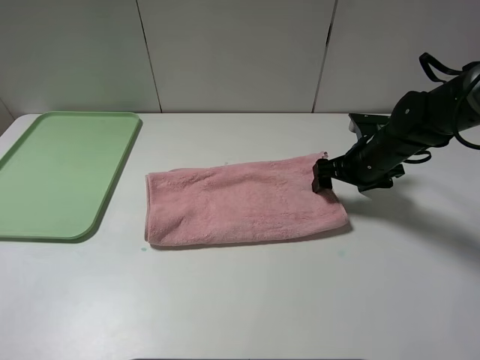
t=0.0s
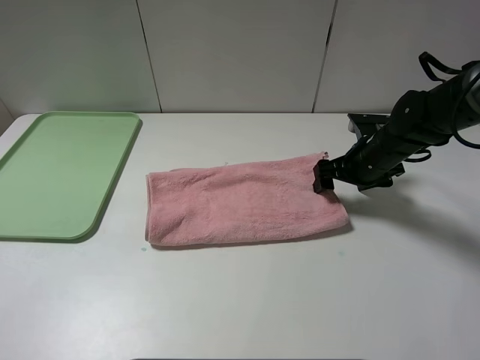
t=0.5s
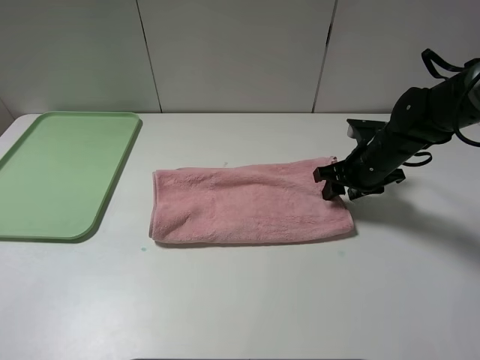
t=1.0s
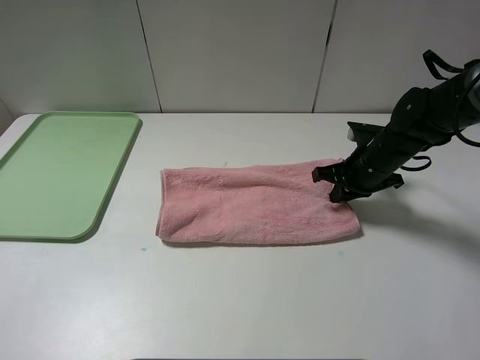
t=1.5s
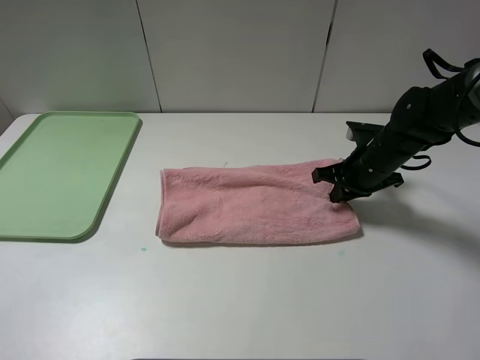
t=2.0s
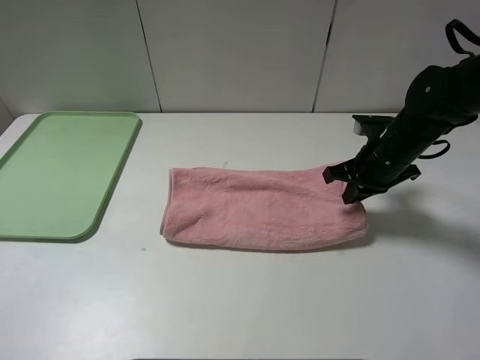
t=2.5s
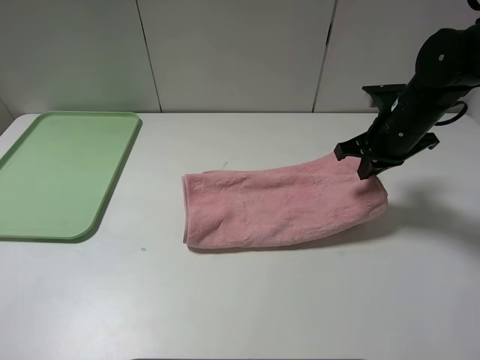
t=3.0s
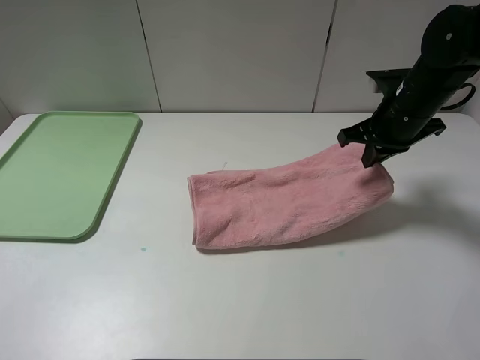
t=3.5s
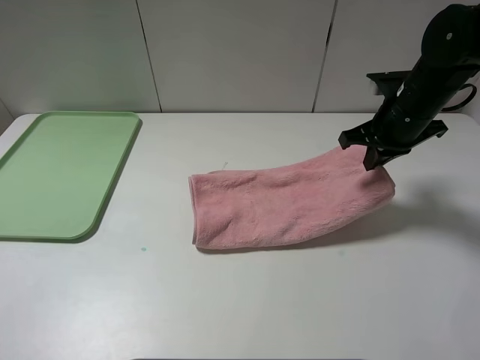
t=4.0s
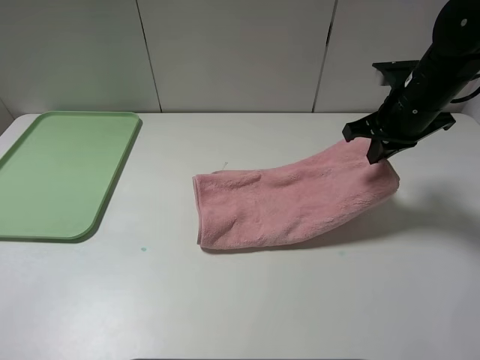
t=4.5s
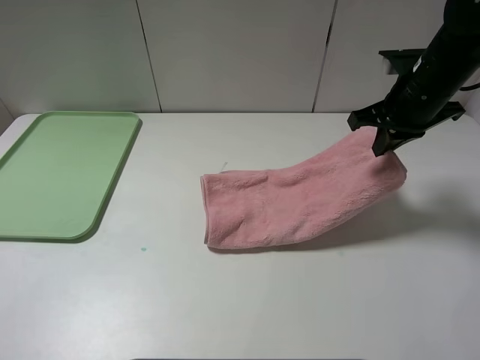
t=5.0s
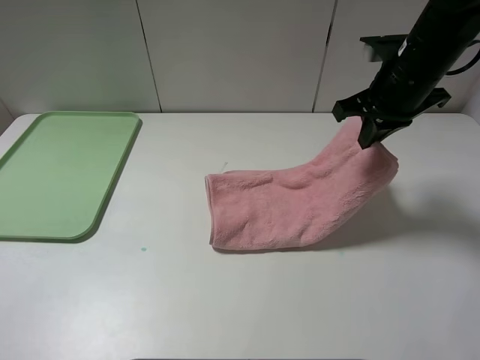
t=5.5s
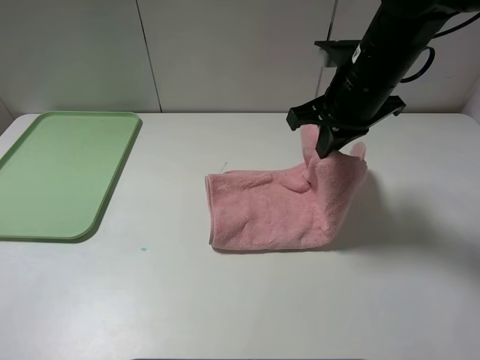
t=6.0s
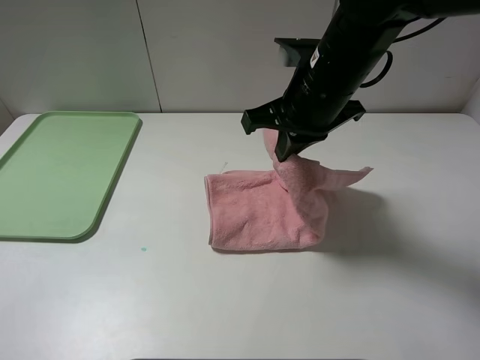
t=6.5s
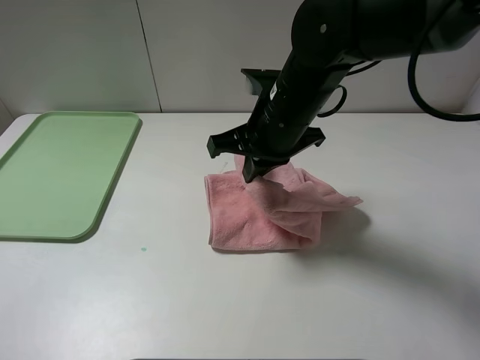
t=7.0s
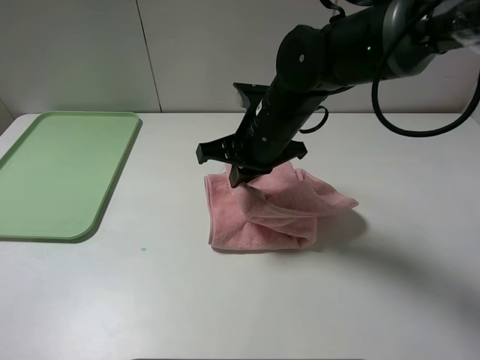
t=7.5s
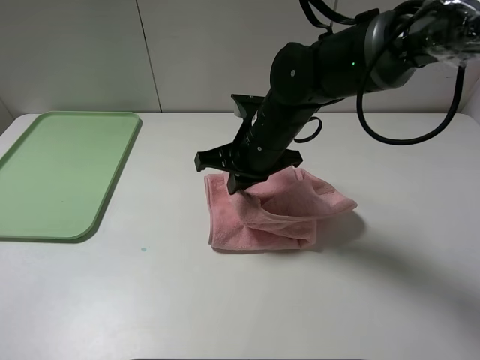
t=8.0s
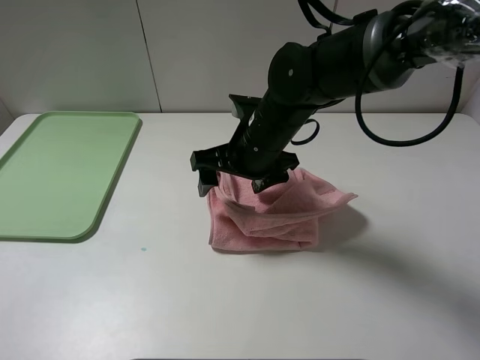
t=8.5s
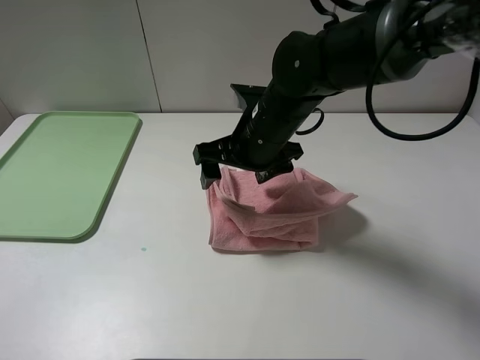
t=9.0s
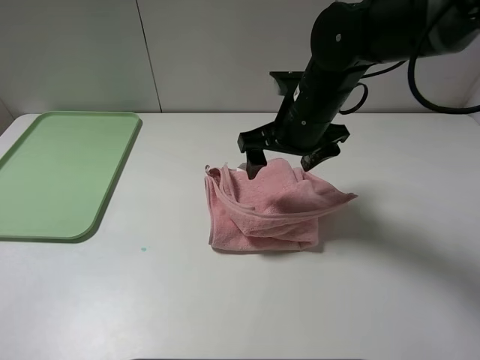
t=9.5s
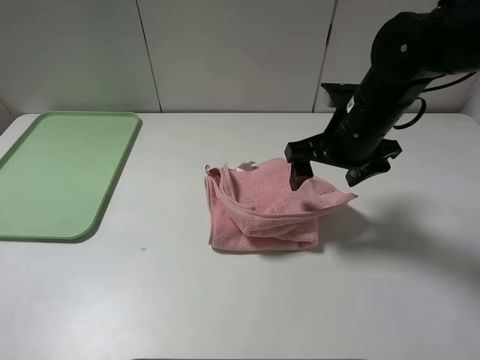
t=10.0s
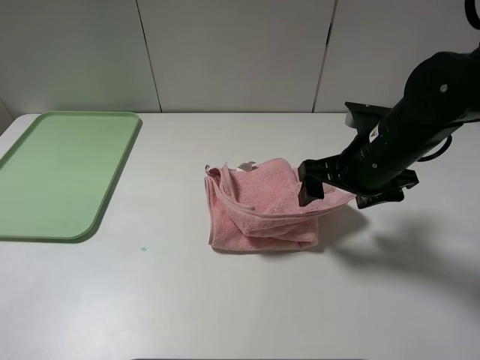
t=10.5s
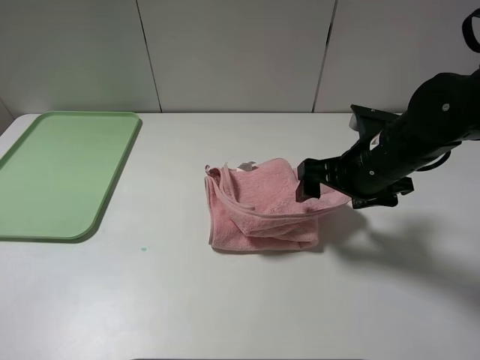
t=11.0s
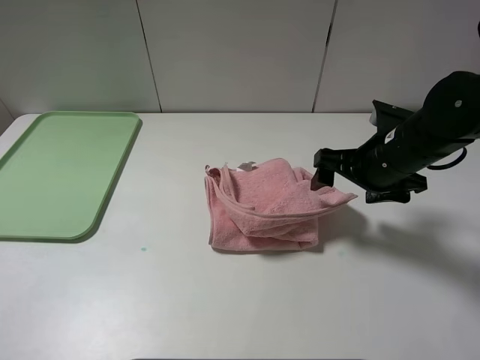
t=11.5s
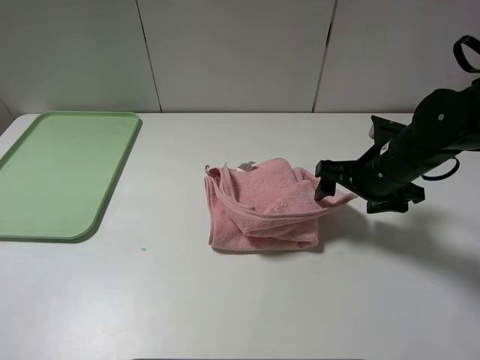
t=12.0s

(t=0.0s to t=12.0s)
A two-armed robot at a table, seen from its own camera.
t=0.0s - t=2.0s: The right gripper closes up.
t=2.0s - t=4.0s: The right gripper is displaced upward by approximately 10 cm.
t=4.0s - t=6.0s: The right gripper shifts about 10 cm to the left and upward.
t=6.0s - t=8.0s: The right gripper shifts some 15 cm to the left and downward.
t=8.0s - t=10.0s: The right gripper moves to the right, some 10 cm, and opens its fingers.
t=10.0s - t=12.0s: The right gripper is displaced downward and to the right by roughly 10 cm.

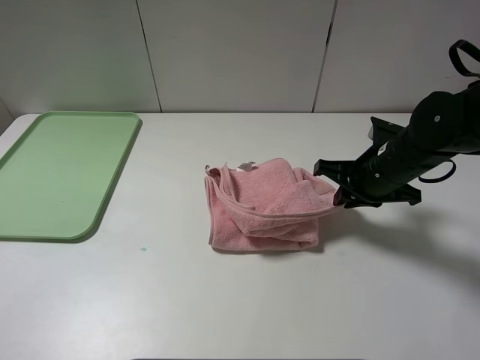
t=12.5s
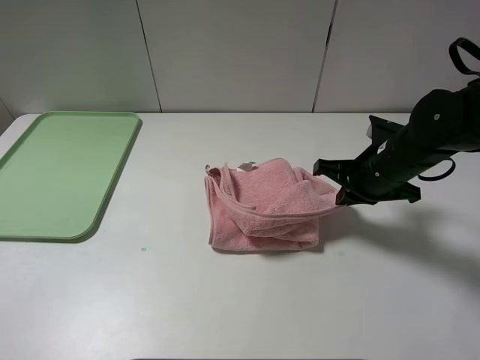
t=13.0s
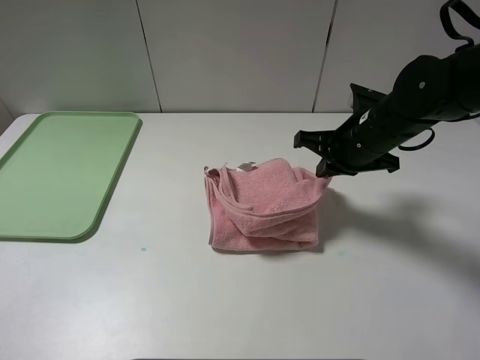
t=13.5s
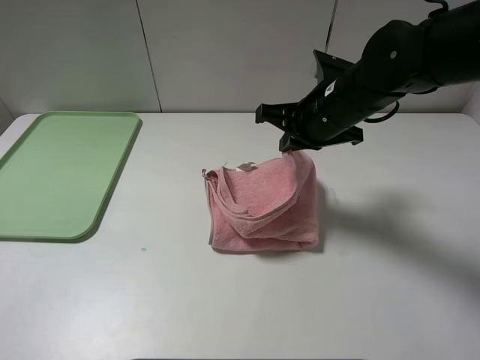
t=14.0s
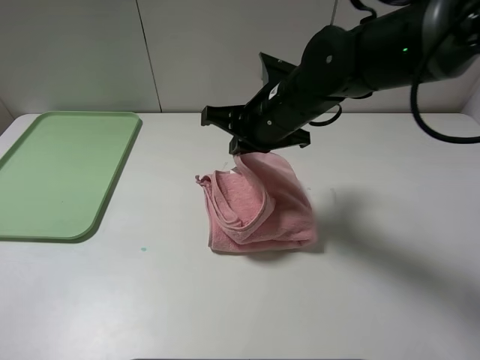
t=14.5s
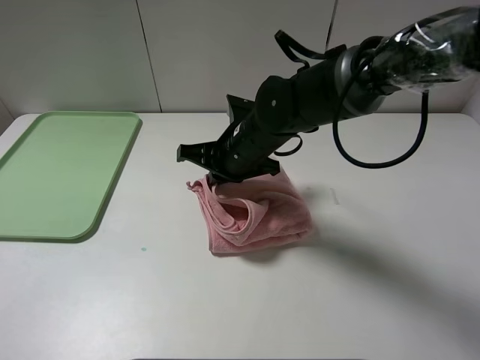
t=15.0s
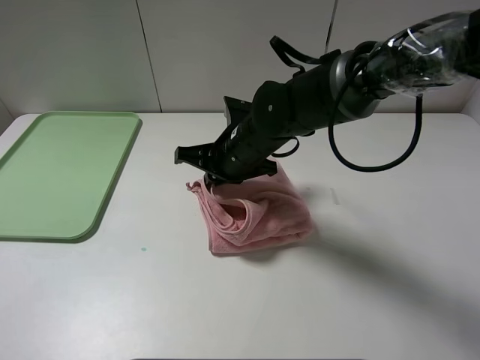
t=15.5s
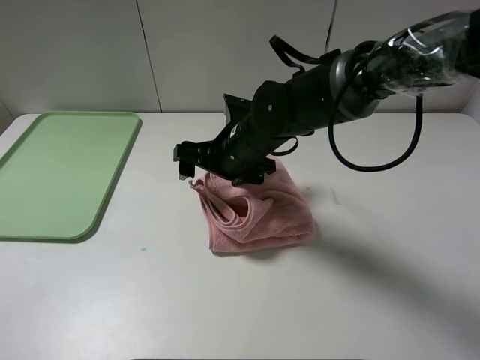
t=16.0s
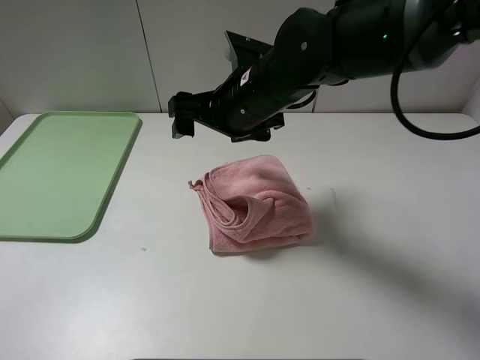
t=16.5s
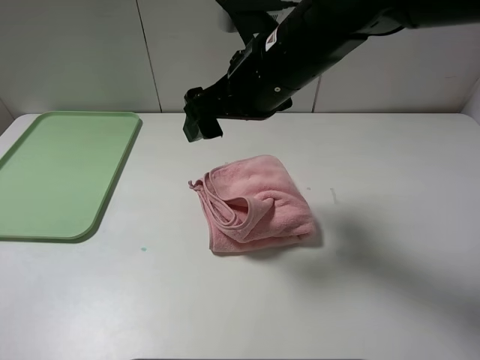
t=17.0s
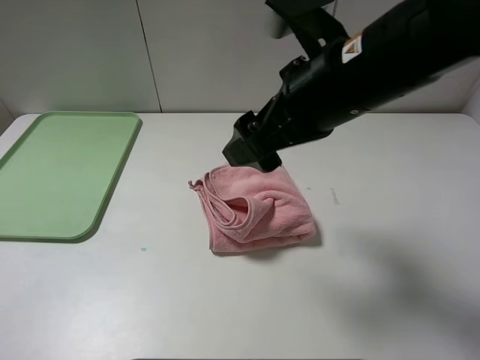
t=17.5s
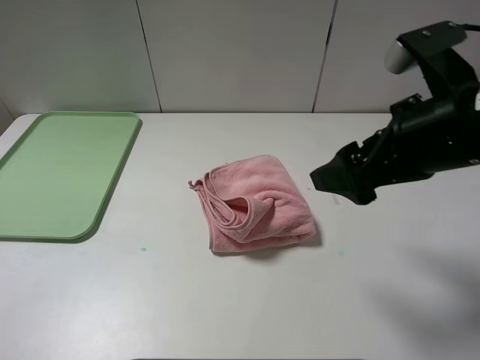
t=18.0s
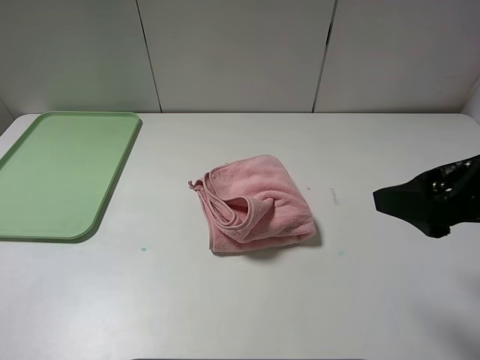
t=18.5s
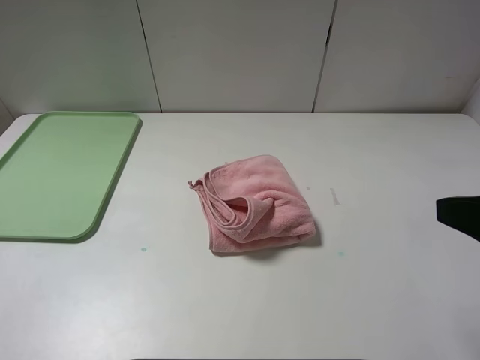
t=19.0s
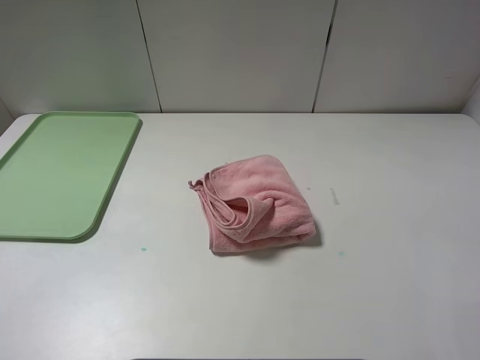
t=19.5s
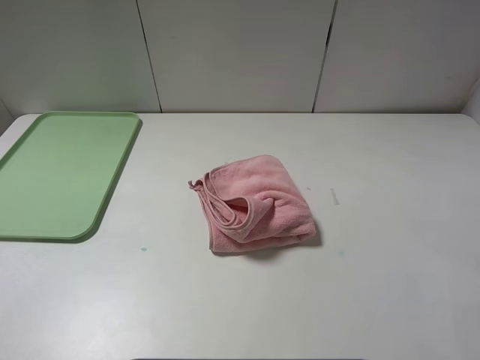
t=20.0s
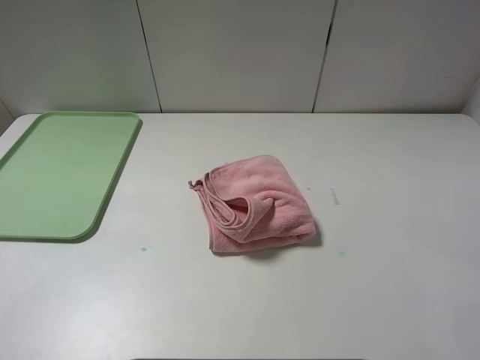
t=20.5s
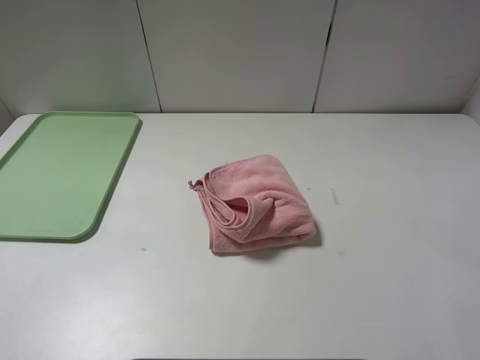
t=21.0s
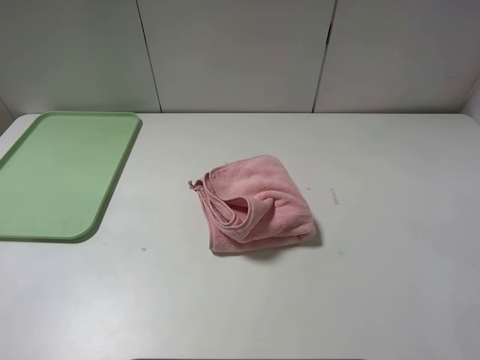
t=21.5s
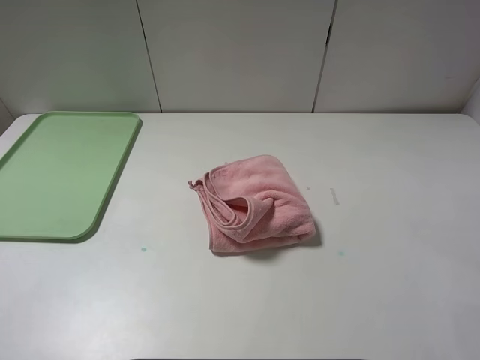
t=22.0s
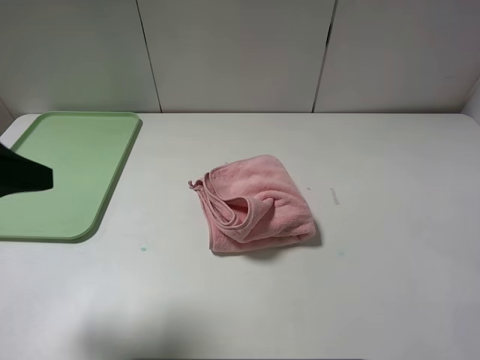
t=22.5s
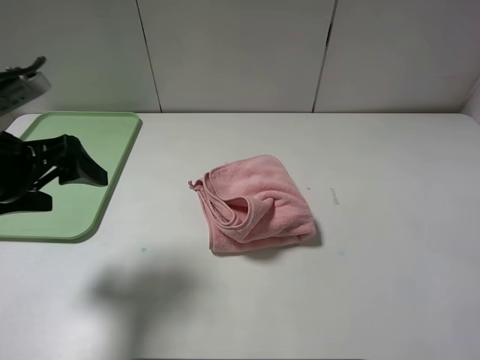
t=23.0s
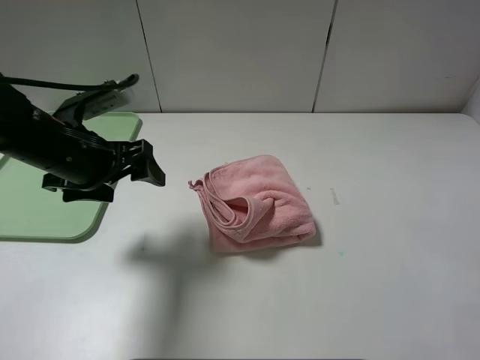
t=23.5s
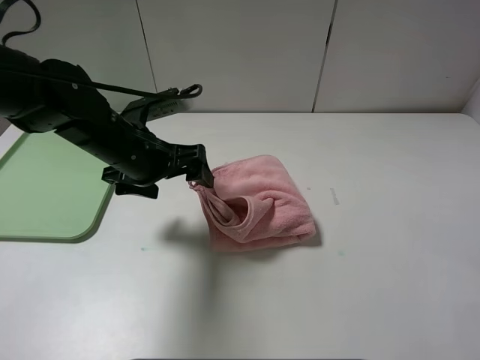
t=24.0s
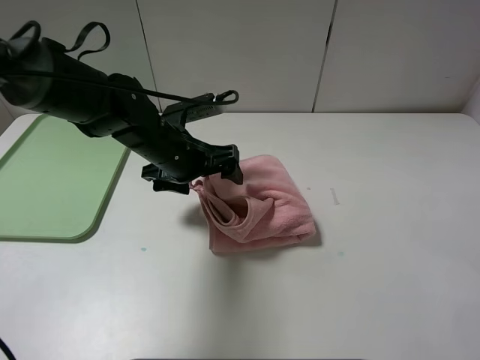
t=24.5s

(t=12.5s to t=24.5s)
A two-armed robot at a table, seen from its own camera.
Step, t=12.5s - t=16.0s: Fold the pink towel from right to left with right gripper.
t=12.5s - t=14.5s: The right gripper is displaced to the left by roughly 15 cm.
t=14.5s - t=16.5s: The right gripper reaches some 5 cm downward, then returns, and opens its fingers.
t=16.5s - t=18.5s: The right gripper heads to the right and backward, covering roughly 30 cm.
t=18.5s - t=20.5s: The right gripper is displaced backward by roughly 15 cm.
t=20.5s - t=22.5s: The left gripper shifts about 15 cm forward.
t=22.5s - t=24.5s: The left gripper is displaced forward, to the right and downward by roughly 30 cm.

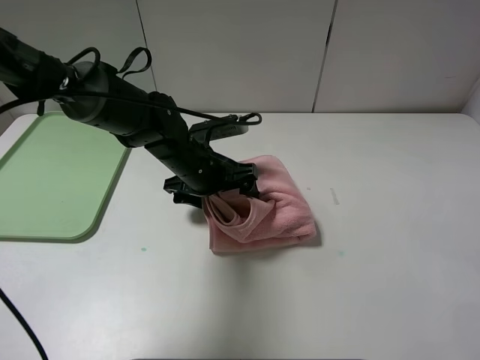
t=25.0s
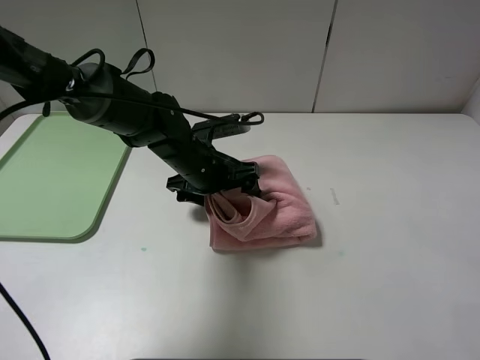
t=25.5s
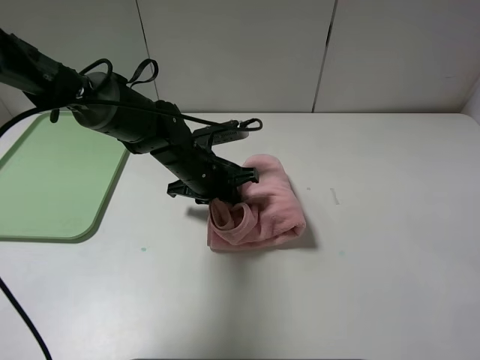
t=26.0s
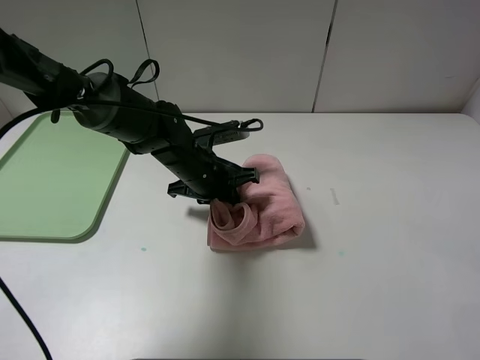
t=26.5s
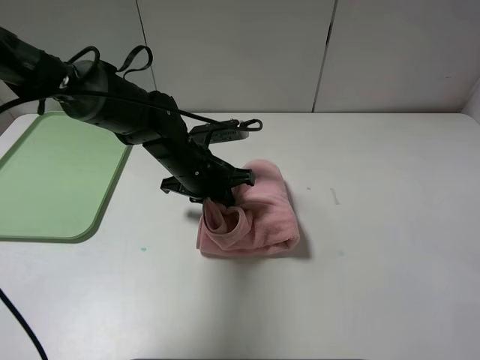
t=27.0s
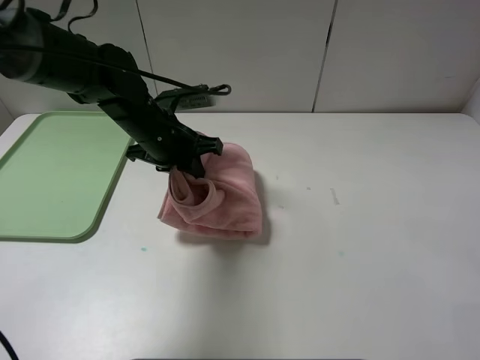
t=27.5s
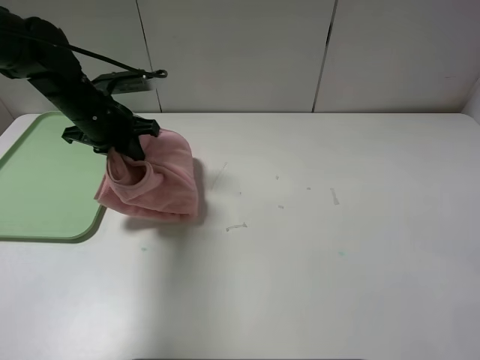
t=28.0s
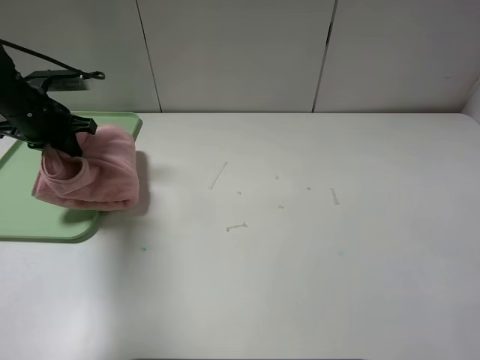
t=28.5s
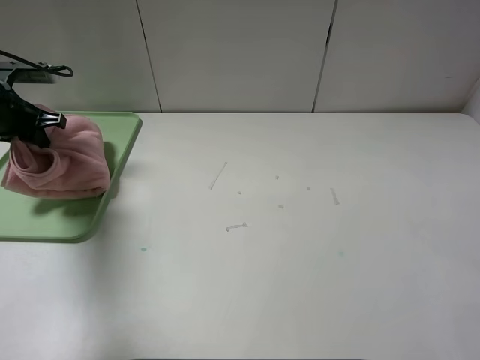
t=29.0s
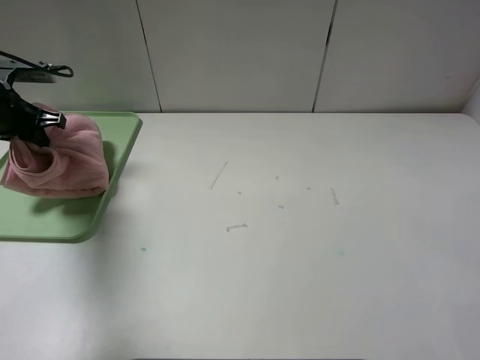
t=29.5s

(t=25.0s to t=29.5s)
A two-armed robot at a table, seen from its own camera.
t=25.0s - t=27.0s: The left gripper closes up.
t=27.0s - t=29.5s: The left gripper travels to the left by roughly 30 cm.
